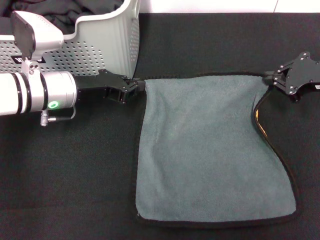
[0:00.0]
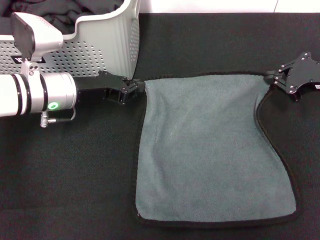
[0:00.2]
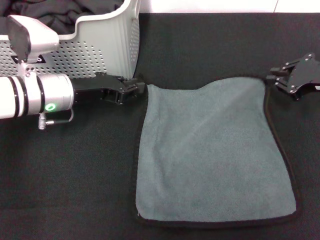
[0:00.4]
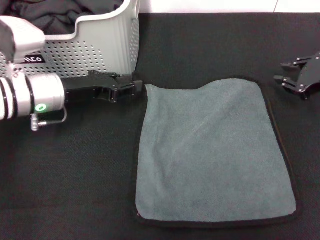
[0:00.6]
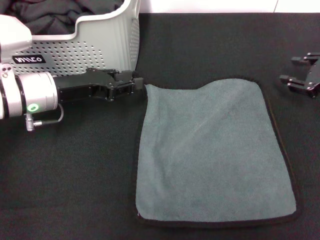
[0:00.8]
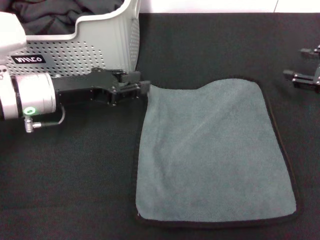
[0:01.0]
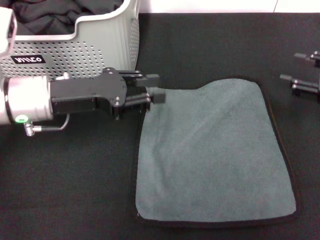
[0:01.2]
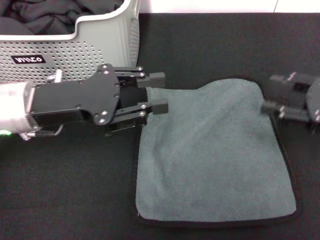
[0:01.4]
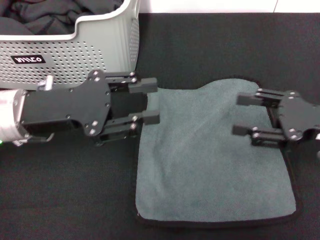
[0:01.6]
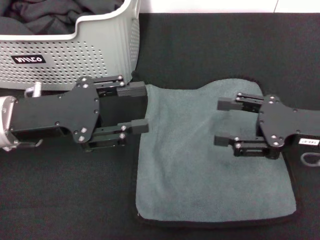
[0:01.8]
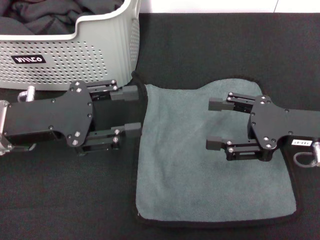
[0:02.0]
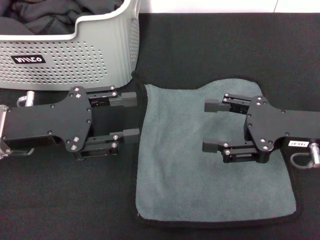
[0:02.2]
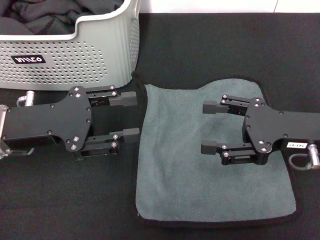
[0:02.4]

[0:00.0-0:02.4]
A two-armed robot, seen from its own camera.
Task of the whole recording: pick up the towel from the storage box and lay it flat on the black tablecloth.
0:00.0 to 0:01.2: The right gripper heads backward, covering some 5 cm, and opens. Meanwhile the left gripper moves approximately 5 cm, and opens up.
0:01.2 to 0:02.4: The right gripper moves to the left, about 10 cm; the left gripper travels backward by some 5 cm.

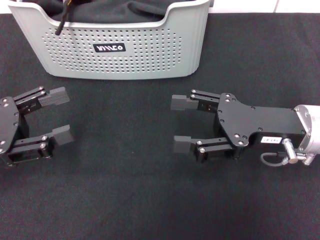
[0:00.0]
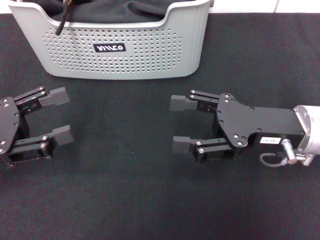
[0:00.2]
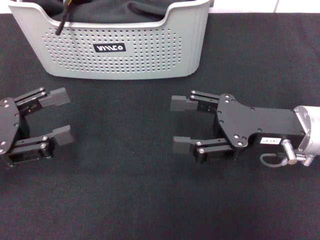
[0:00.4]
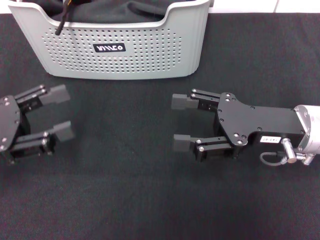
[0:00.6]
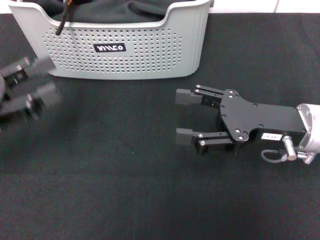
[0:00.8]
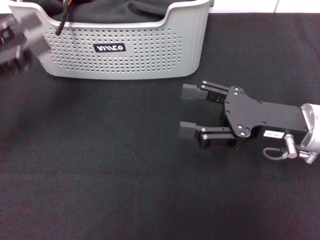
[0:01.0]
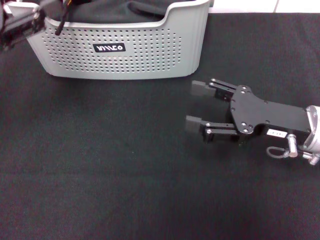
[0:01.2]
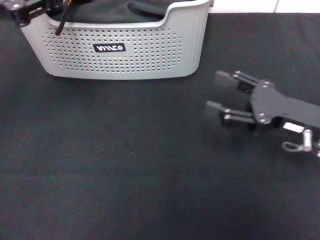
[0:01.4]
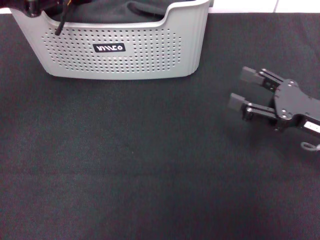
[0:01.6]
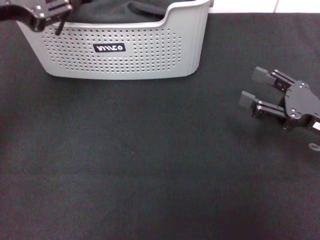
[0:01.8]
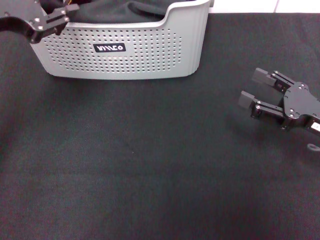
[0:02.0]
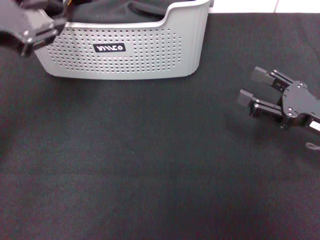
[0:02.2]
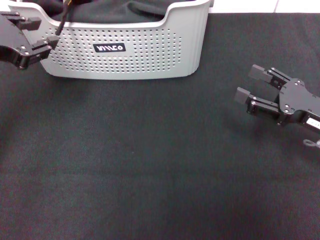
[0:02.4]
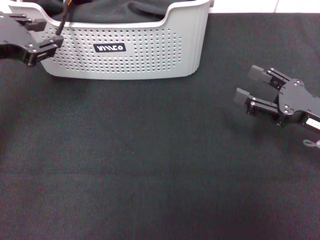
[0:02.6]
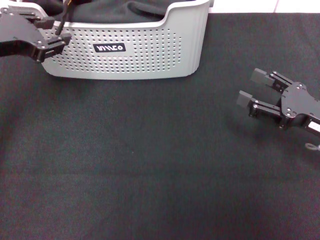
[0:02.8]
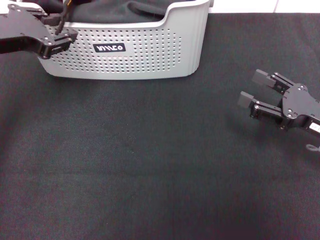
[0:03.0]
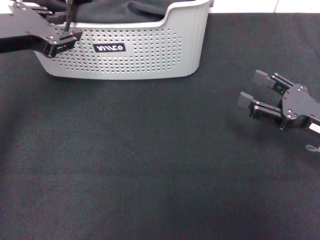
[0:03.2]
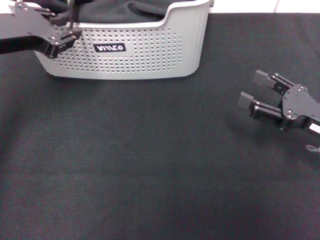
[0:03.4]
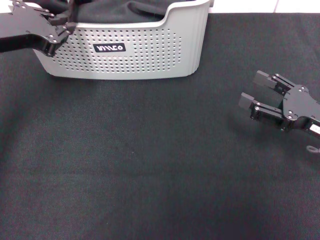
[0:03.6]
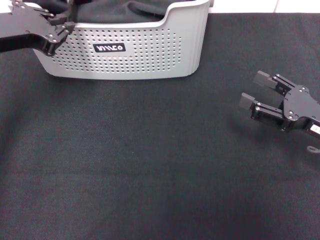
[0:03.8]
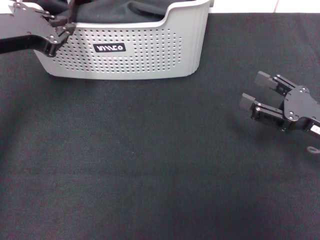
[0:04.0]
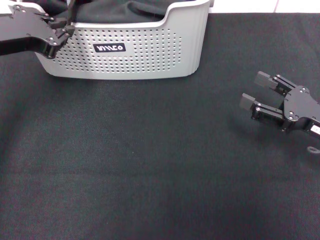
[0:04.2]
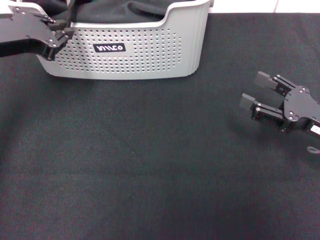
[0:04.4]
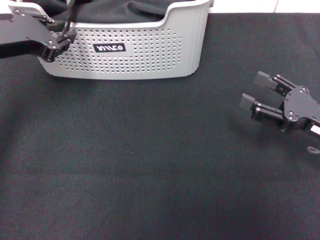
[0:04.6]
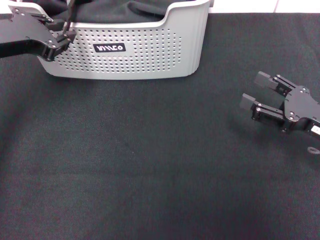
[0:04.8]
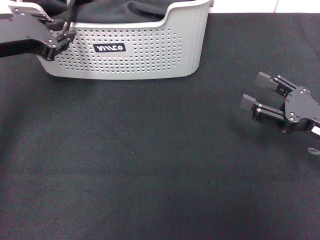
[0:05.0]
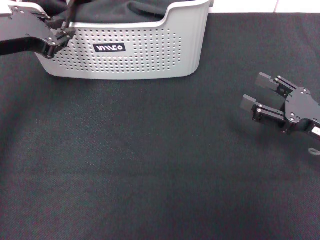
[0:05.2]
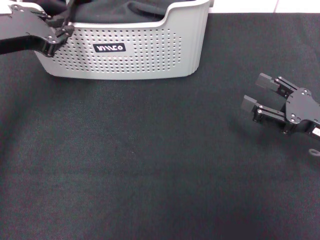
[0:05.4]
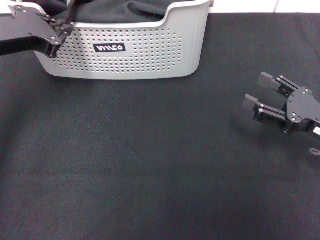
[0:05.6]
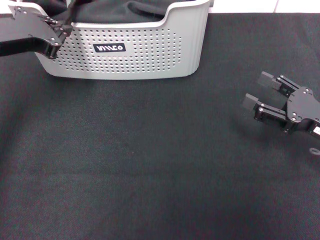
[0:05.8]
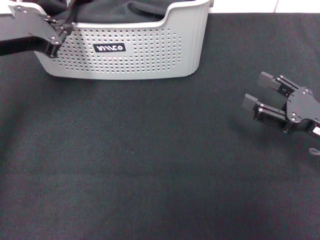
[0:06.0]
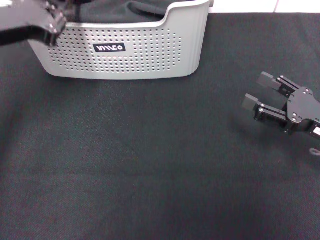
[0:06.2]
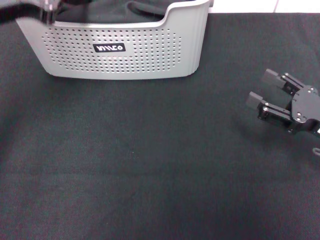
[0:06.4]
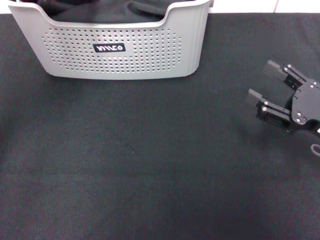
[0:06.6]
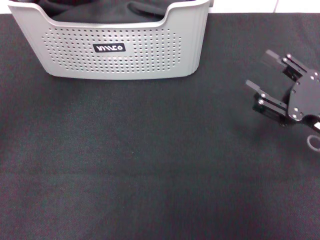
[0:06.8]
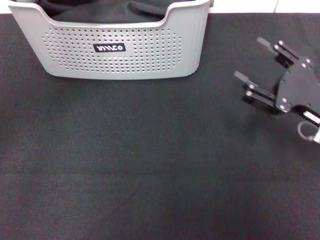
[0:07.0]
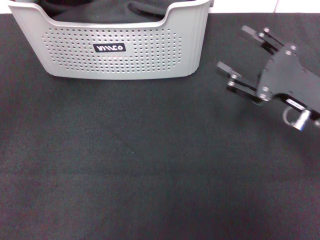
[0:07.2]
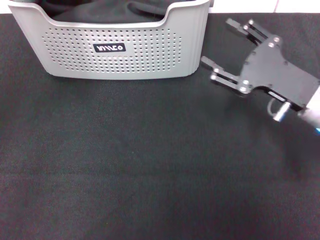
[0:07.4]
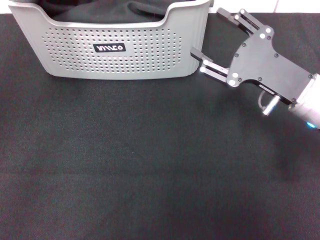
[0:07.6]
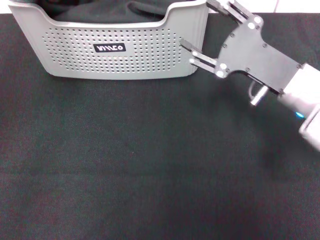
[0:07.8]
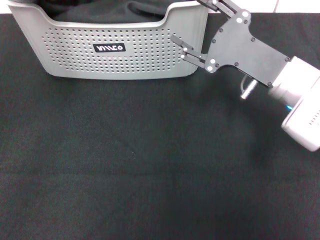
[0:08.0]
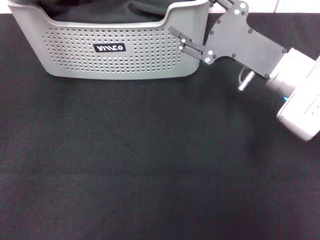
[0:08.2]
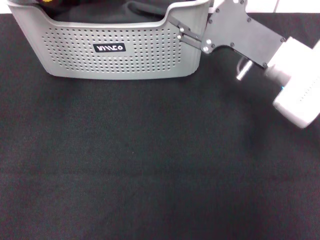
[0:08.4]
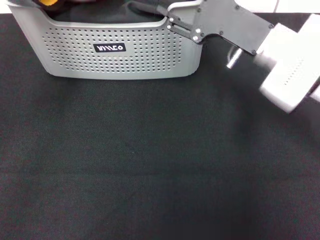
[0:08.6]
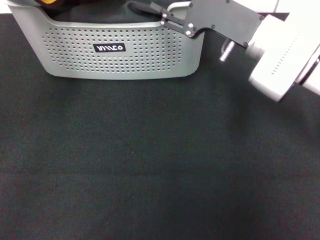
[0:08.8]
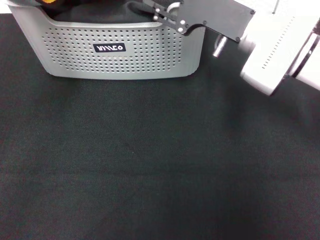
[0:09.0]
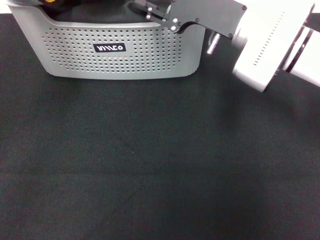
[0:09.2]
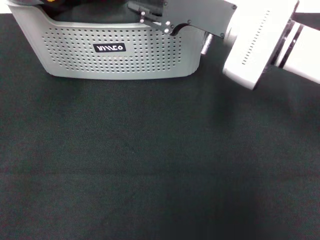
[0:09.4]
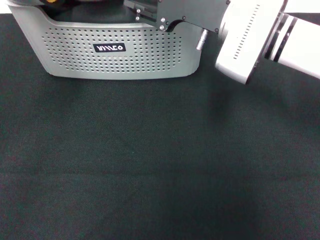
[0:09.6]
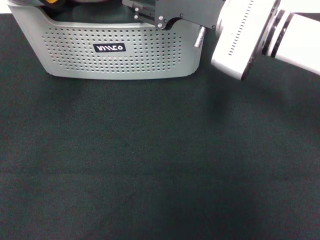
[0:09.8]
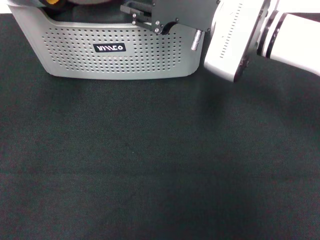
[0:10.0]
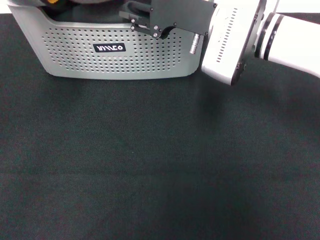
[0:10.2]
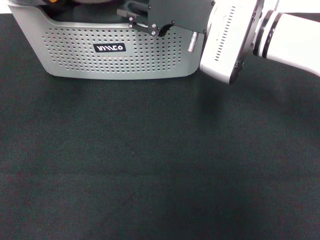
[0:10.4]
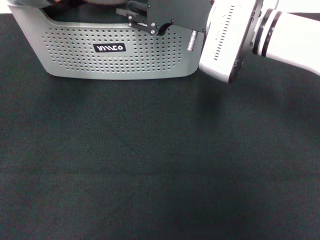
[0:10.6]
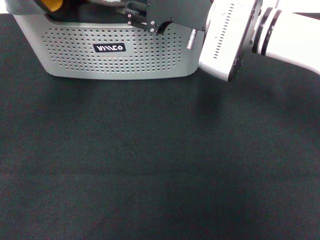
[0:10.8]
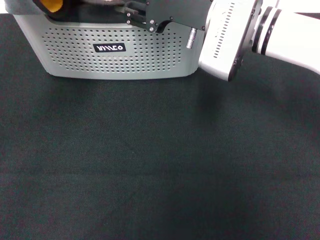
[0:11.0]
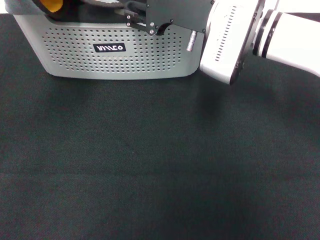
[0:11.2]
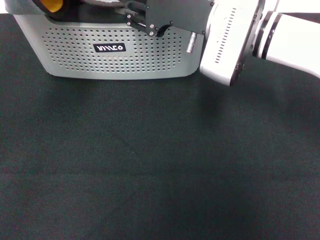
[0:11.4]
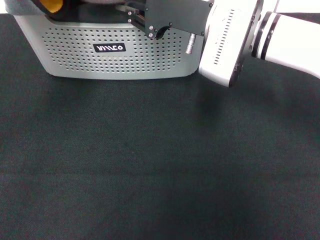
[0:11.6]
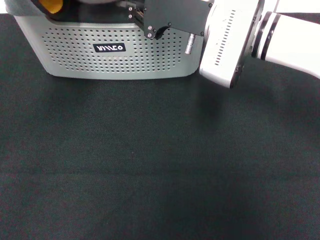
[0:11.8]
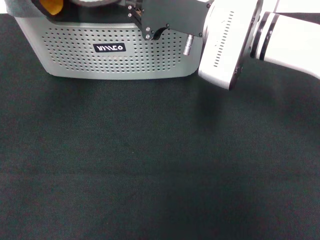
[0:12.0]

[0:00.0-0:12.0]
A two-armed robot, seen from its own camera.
Task of the whole recording: pick up the towel from the storage box and lay it flat on the black tablecloth.
Step, 0:00.0 to 0:06.0: Pick up a towel with the left gripper.
Step, 0:06.2 to 0:11.6: Spread the towel flat with the left gripper.
0:00.0 to 0:01.6: The right gripper shifts approximately 5 cm to the right, while the left gripper is displaced upward and forward by about 15 cm, and closes.
0:03.0 to 0:04.4: Neither gripper changes place.
0:04.4 to 0:06.0: Both grippers stay about where they are.
0:06.0 to 0:07.6: The left gripper is displaced upward and backward by roughly 10 cm. The right gripper heads to the left, covering about 10 cm.
0:07.6 to 0:09.0: The right gripper heads to the left, forward and upward, covering roughly 10 cm.
0:09.0 to 0:10.4: There are only small adjustments of the grippers.
0:10.4 to 0:12.0: The right gripper closes its fingers.

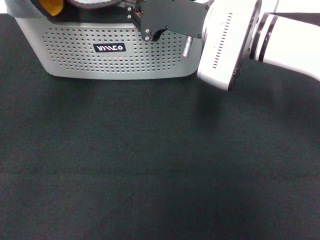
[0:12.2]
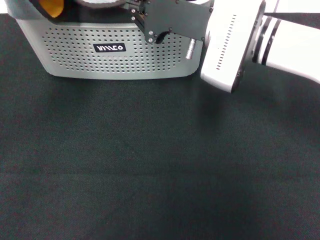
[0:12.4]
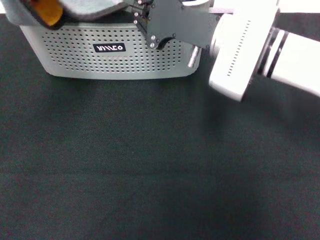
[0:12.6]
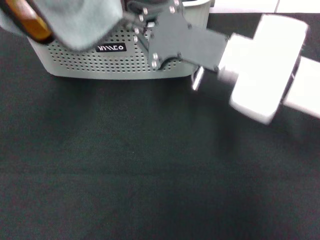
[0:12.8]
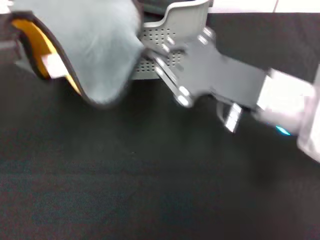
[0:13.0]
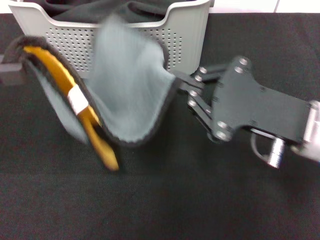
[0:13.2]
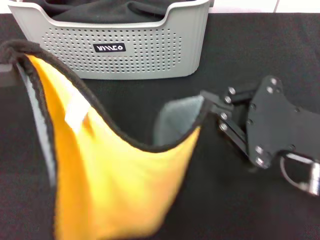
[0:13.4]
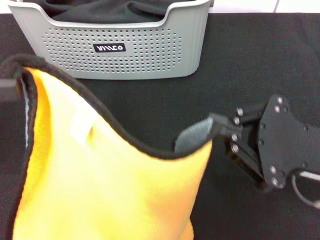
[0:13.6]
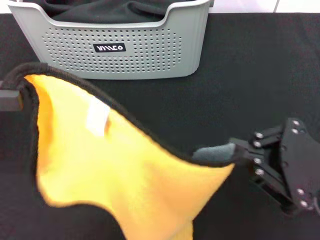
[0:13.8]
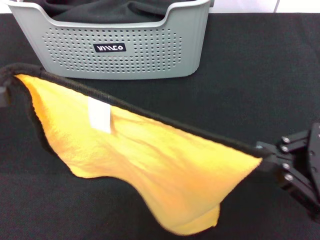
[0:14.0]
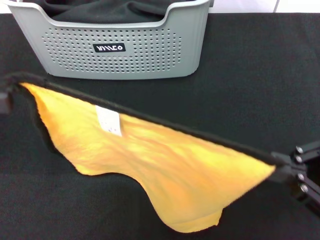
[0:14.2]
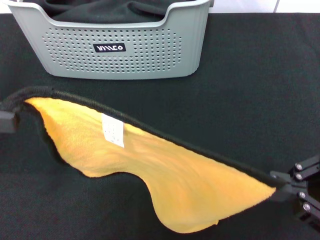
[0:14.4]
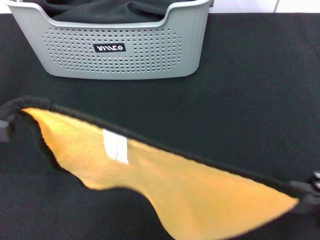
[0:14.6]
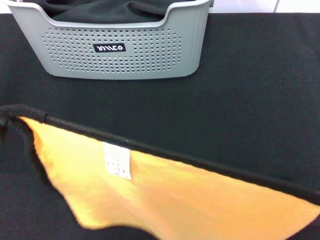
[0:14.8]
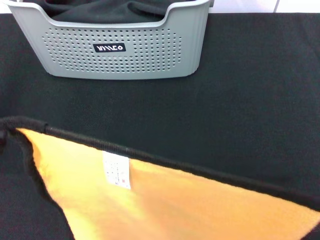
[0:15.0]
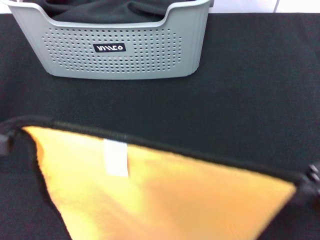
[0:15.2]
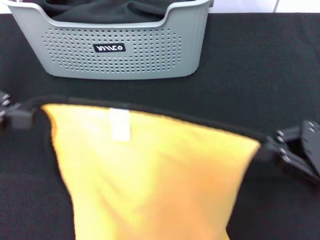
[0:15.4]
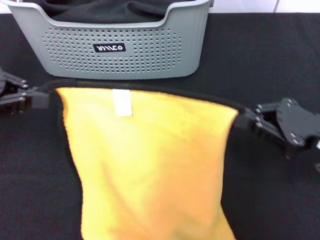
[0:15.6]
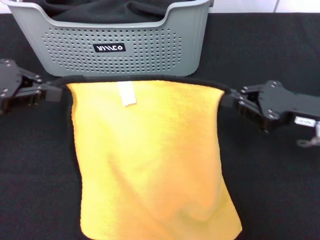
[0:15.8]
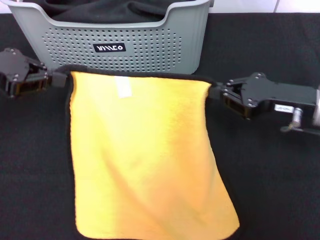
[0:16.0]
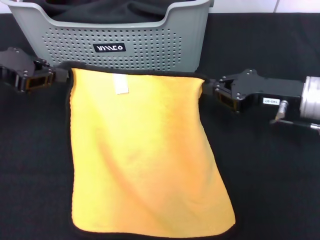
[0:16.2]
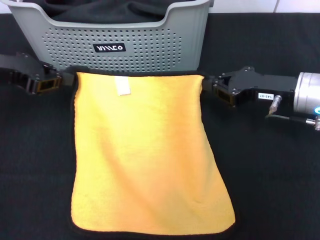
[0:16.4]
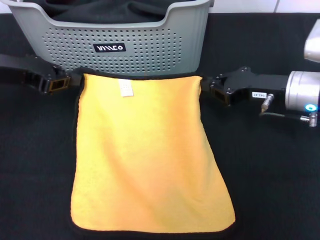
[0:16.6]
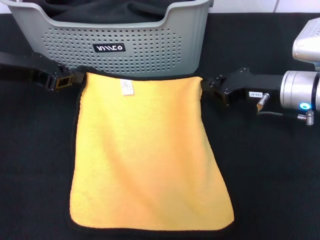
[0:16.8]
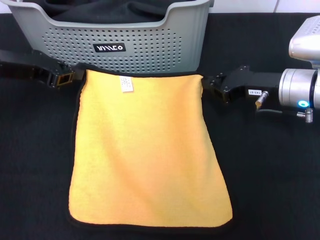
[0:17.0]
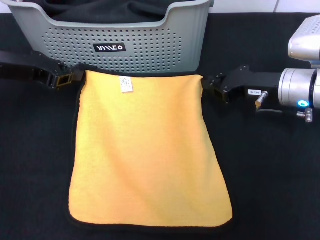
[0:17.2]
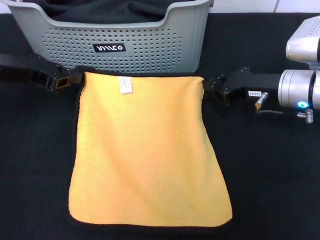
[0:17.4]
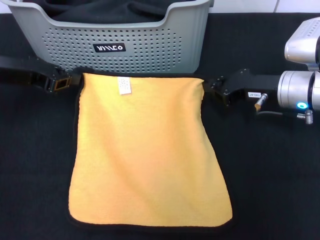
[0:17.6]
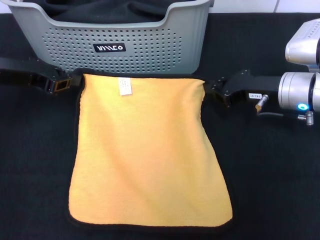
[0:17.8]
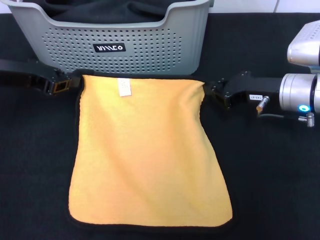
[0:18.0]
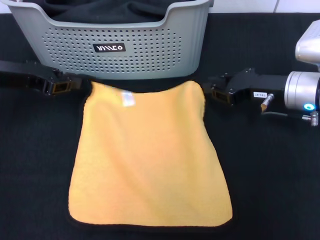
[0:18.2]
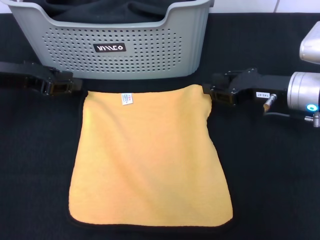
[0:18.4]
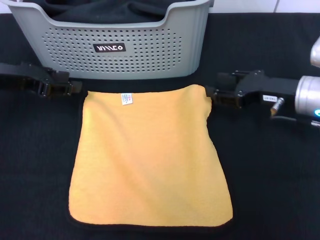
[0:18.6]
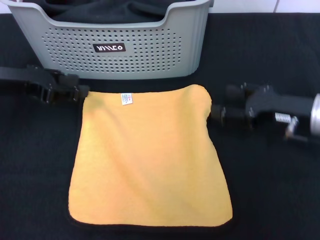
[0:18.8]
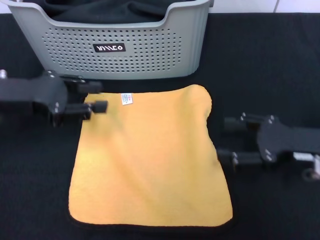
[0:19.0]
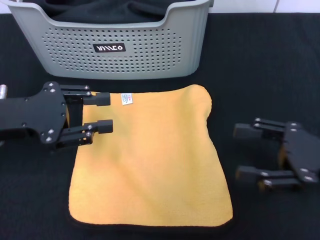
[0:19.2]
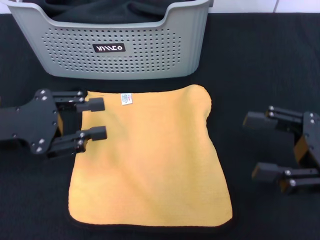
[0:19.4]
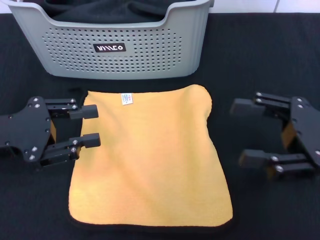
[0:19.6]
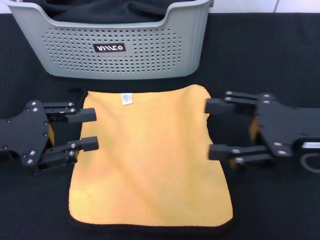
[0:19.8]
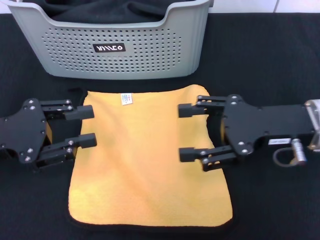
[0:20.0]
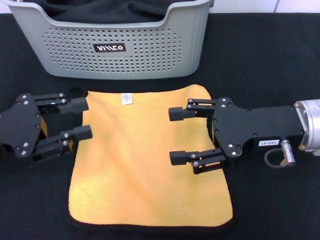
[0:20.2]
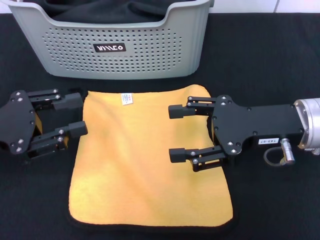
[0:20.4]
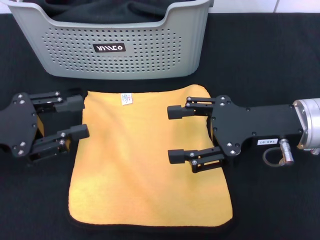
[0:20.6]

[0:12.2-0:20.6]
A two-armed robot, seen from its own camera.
Task of the whole recording: pick up the towel from the storage box and lay it flat on the black tablecloth.
Step, 0:12.2 to 0:18.2: Spread the towel flat with the right gripper.
0:12.2 to 0:13.6: The right gripper goes about 25 cm backward and to the right.
0:13.6 to 0:15.0: The right gripper travels to the right by about 5 cm.
0:15.0 to 0:16.4: The left gripper goes roughly 15 cm forward and downward. The right gripper heads forward and to the left, covering roughly 20 cm.
0:16.4 to 0:17.8: The grippers stay close to where they were, moving slightly.
0:17.8 to 0:19.2: The left gripper heads backward, covering roughly 10 cm, and opens its fingers. Meanwhile the right gripper travels backward and to the right by about 15 cm, and opens.
0:19.2 to 0:20.6: The right gripper is displaced to the left by about 10 cm.
